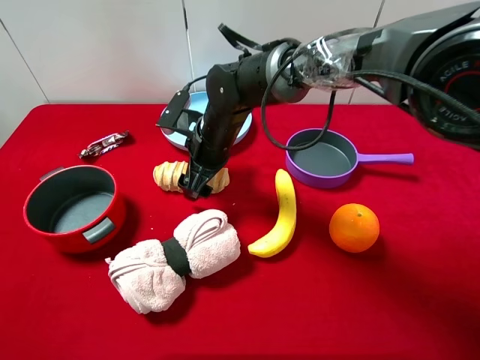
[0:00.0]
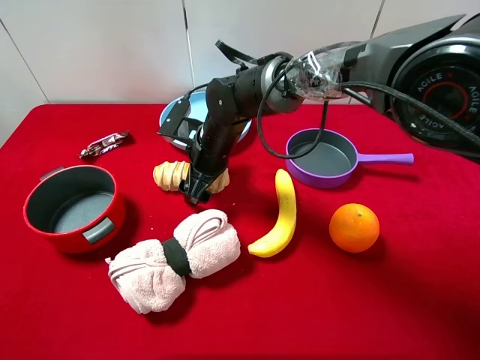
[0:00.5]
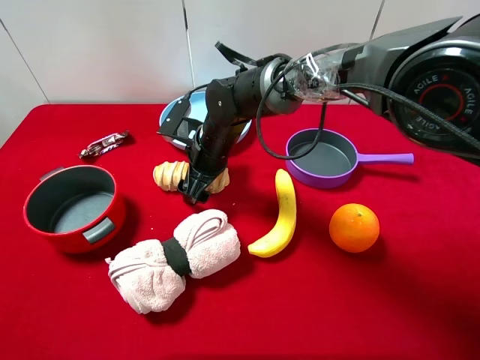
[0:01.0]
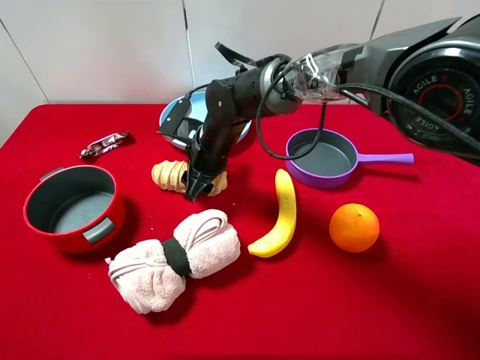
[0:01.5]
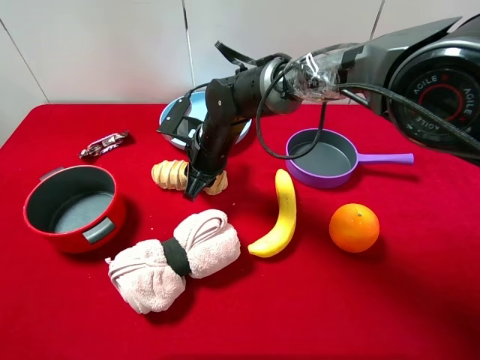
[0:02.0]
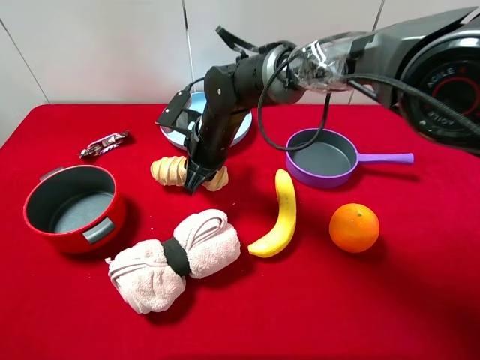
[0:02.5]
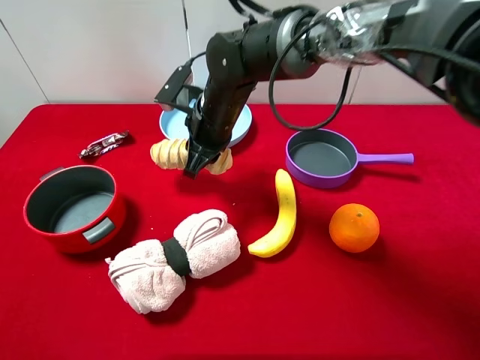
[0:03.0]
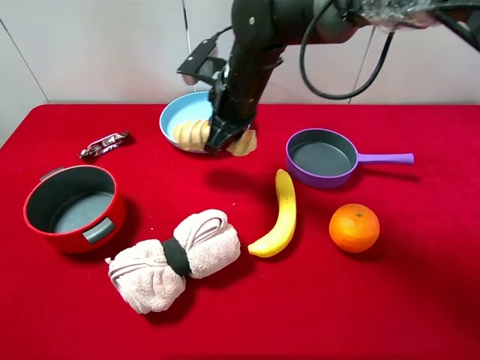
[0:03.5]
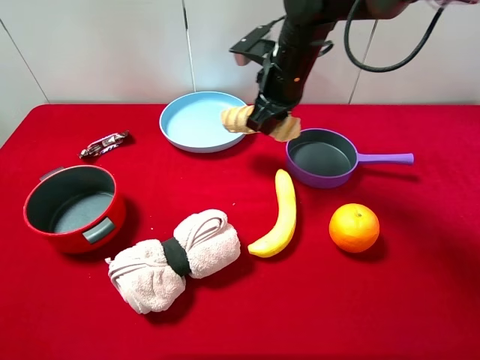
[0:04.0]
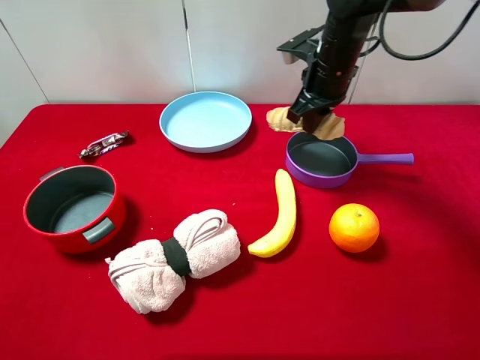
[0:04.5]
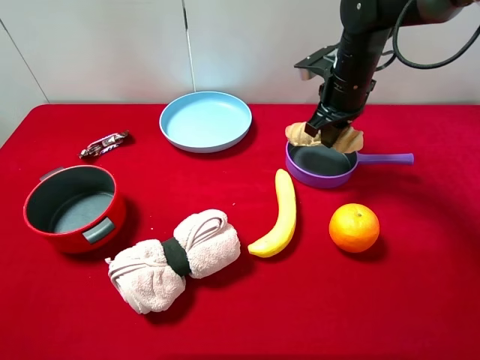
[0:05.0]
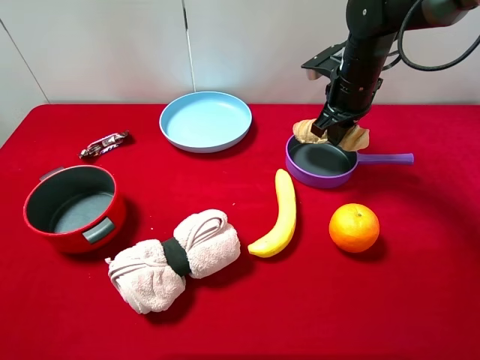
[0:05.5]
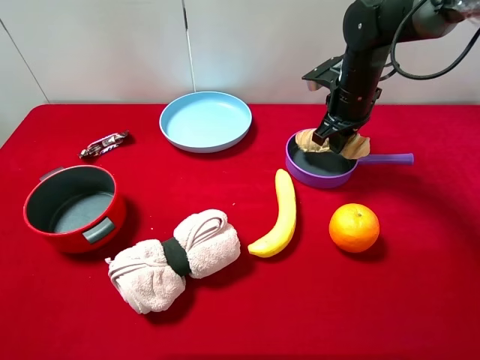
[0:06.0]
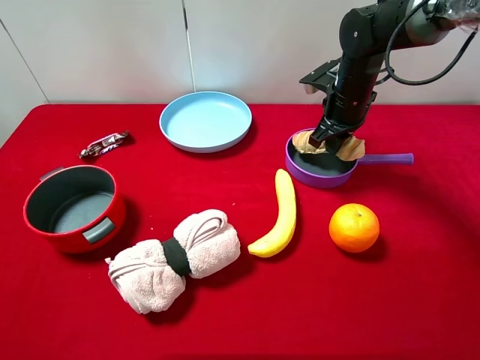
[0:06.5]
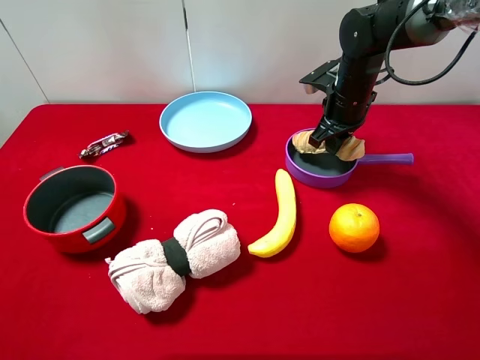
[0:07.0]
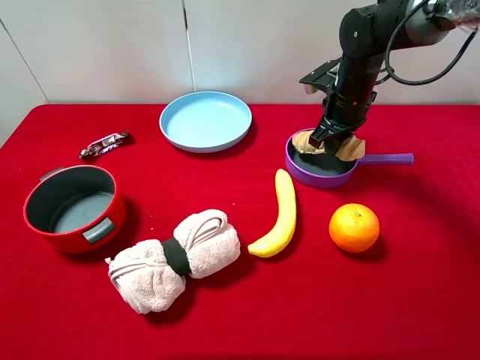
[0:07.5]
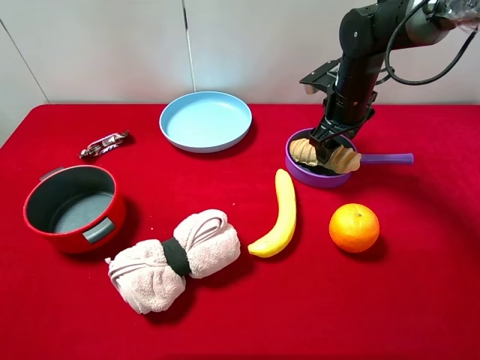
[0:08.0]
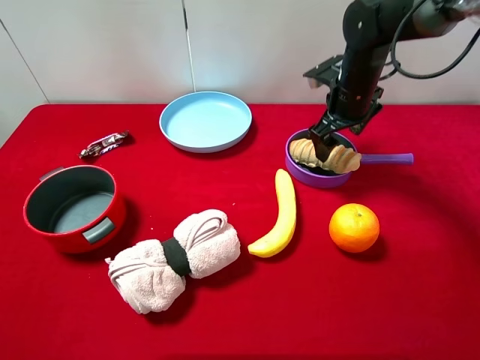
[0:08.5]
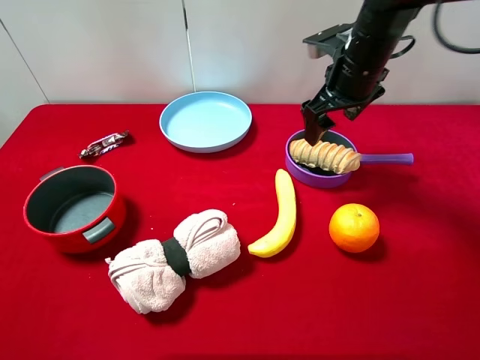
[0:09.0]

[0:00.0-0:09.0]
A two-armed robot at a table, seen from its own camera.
Task of the whole recording: pick up an item with a gripper and place it in a random container on the desktop.
0:00.0 to 0:02.0: The right gripper closes up.
0:02.0 to 0:04.5: The right gripper travels to the right and upward by approximately 20 cm.
0:04.5 to 0:07.0: The right gripper travels downward by some 5 cm.
0:07.0 to 0:09.0: The right gripper is displaced upward by approximately 5 cm, and opens its fingers.

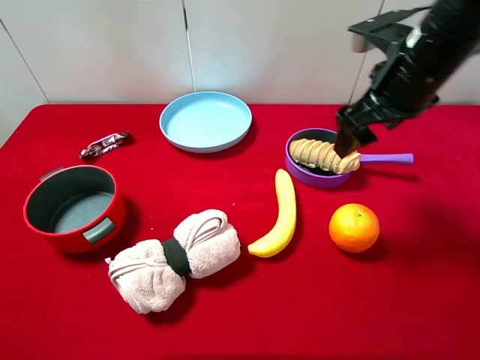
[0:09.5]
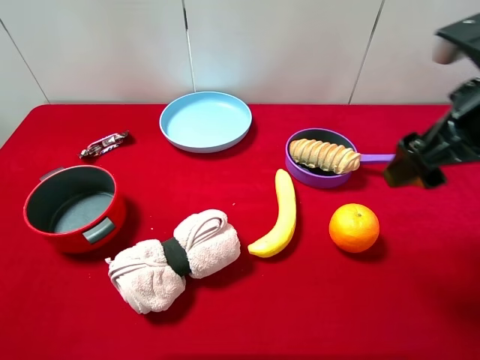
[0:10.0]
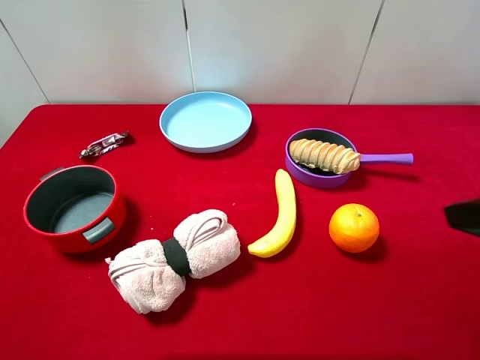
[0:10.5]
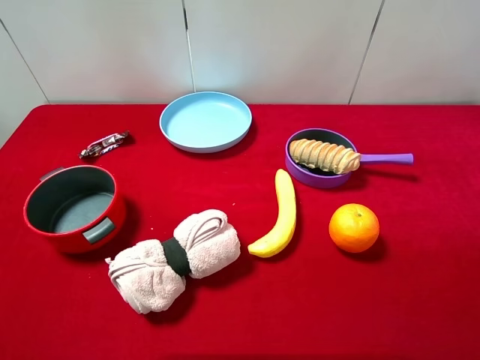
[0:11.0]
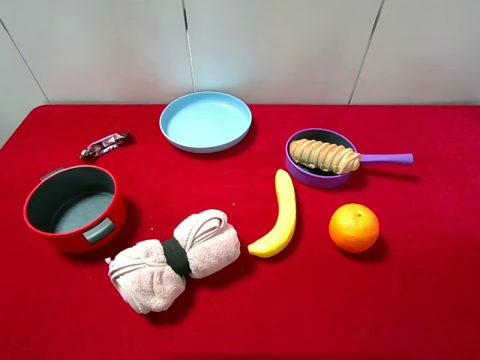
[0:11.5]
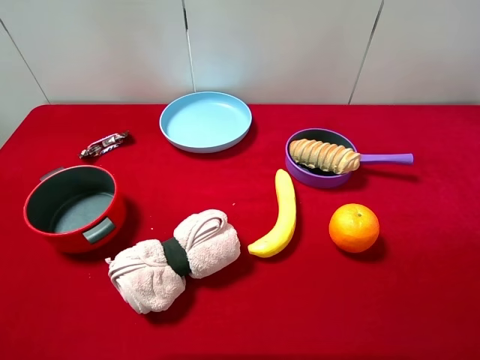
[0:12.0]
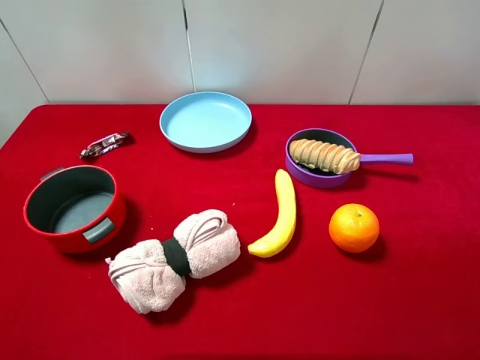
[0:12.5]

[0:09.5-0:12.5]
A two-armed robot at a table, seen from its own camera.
Task of the whole recording: pick up an item with a gripper and place it in a random container on the desktop.
0:09.5 to 0:11.0: The right gripper moves backward and to the right, roughly 25 cm.
